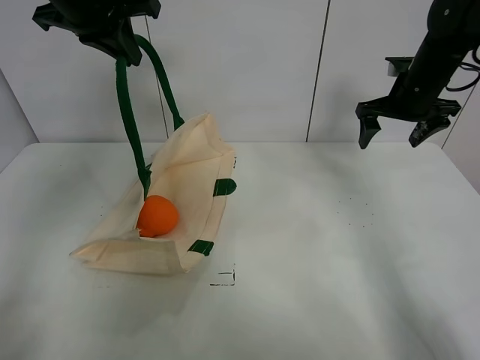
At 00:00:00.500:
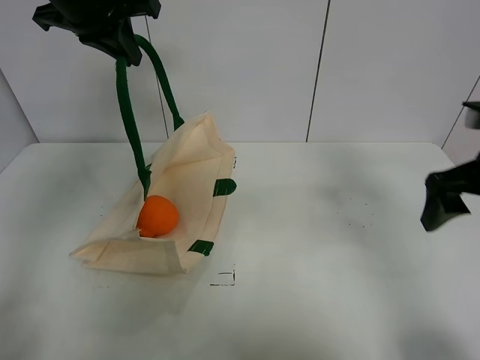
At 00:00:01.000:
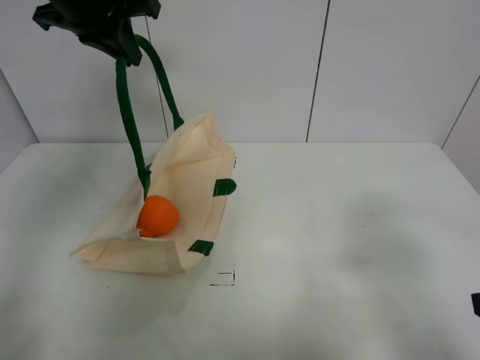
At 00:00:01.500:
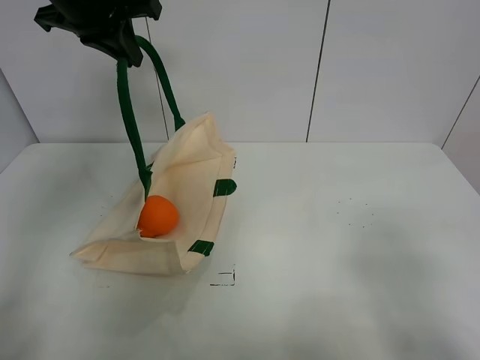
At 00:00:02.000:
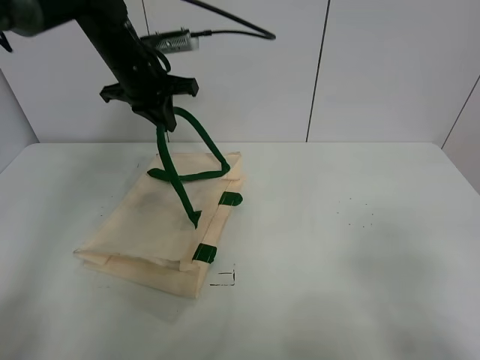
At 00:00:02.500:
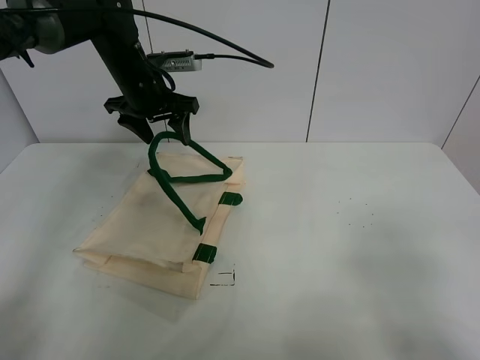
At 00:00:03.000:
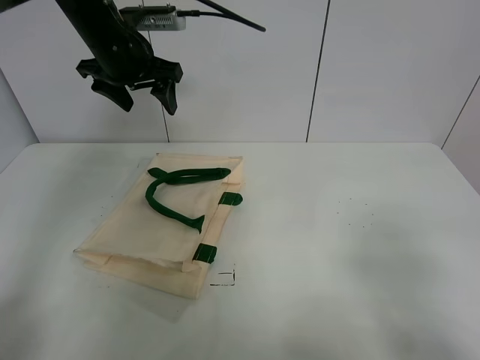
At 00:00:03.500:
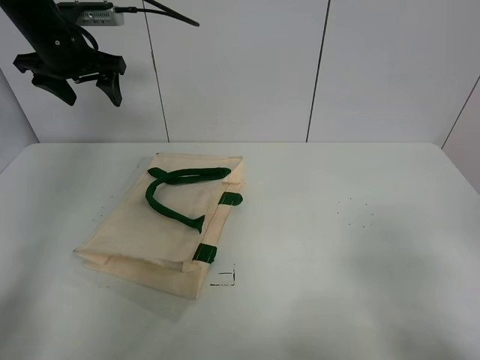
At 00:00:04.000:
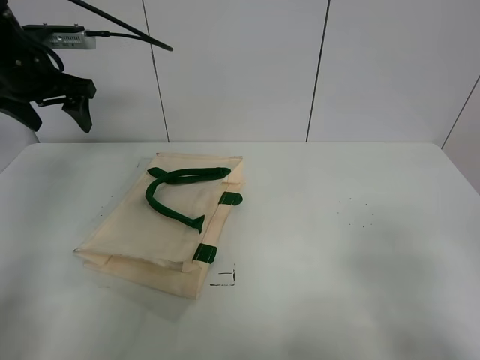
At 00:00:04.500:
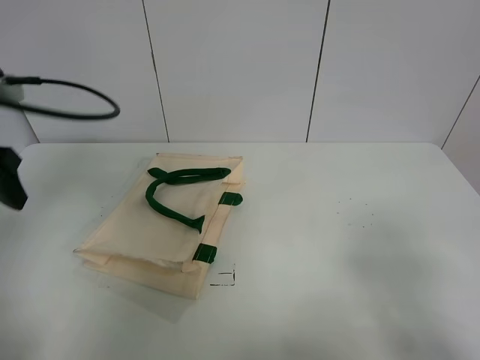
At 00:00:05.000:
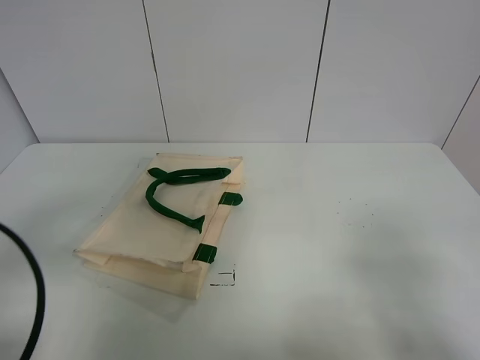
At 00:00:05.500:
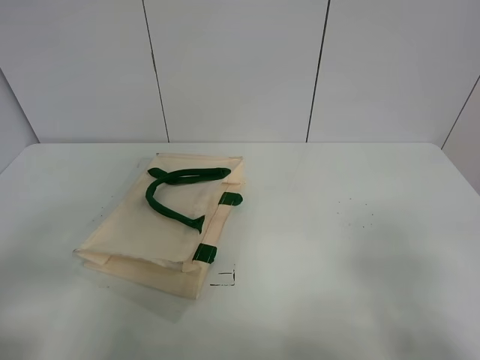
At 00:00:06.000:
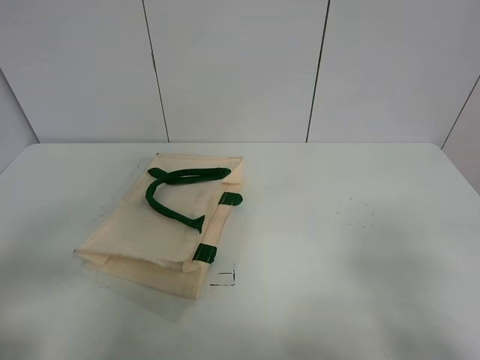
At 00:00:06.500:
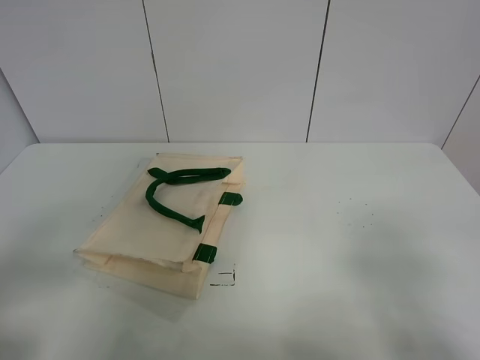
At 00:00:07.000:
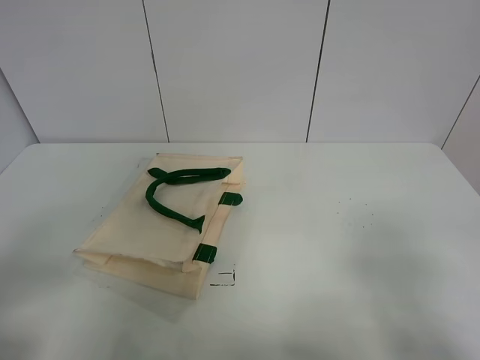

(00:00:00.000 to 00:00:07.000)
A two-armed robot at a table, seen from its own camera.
Task of the whole recording: open the white linen bag and put the orange in the bag.
Step, 00:00:00.000 - 00:00:02.500: Put down the handbag with left gripper.
00:00:00.000 - 00:00:02.000: The left gripper travels downward and forward by about 15 cm; the right gripper travels backward by roughly 40 cm.
00:00:02.000 - 00:00:03.500: The left gripper is displaced to the left by approximately 10 cm, and opens.
00:00:03.500 - 00:00:05.000: The left gripper goes about 40 cm backward.
00:00:05.000 - 00:00:07.000: The left gripper heads backward, covering roughly 5 cm.
